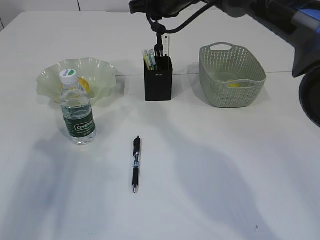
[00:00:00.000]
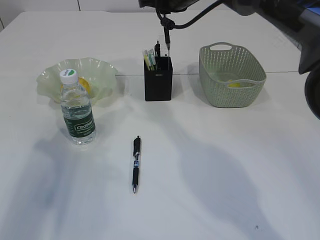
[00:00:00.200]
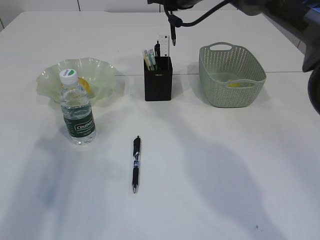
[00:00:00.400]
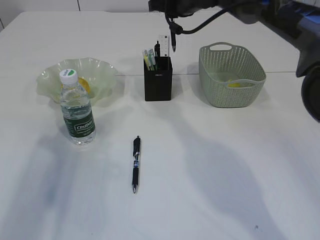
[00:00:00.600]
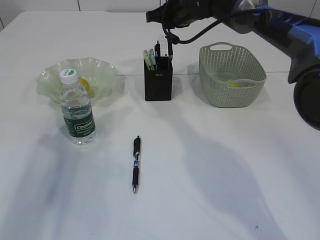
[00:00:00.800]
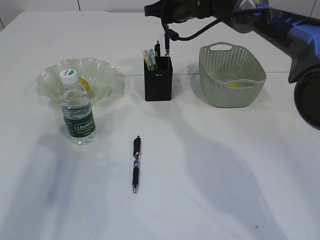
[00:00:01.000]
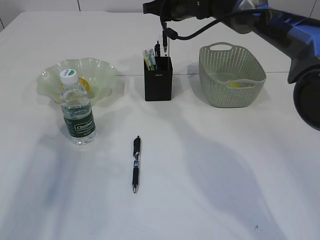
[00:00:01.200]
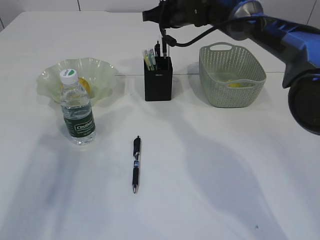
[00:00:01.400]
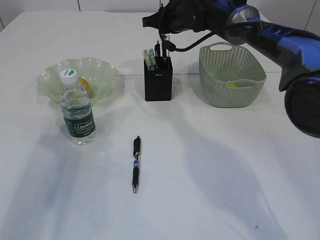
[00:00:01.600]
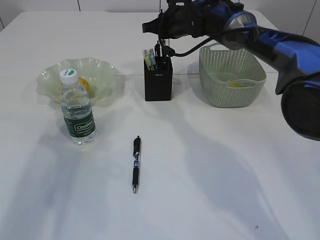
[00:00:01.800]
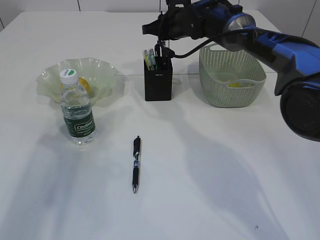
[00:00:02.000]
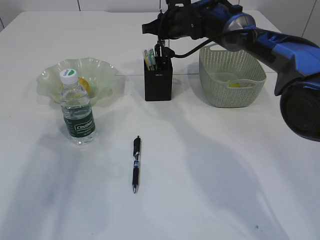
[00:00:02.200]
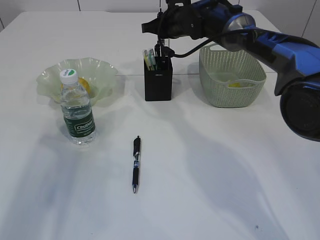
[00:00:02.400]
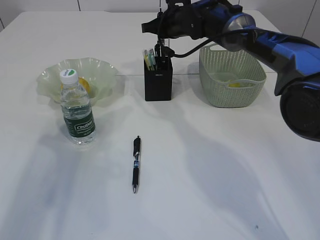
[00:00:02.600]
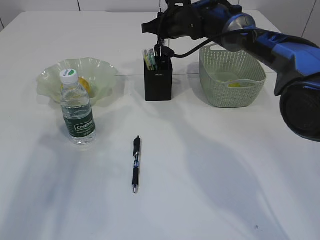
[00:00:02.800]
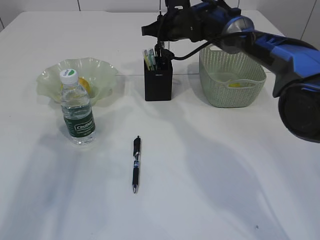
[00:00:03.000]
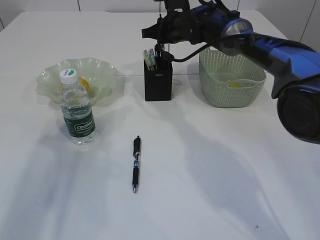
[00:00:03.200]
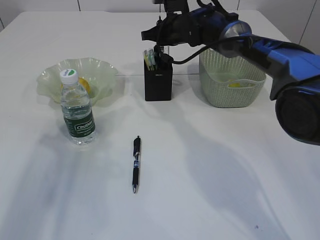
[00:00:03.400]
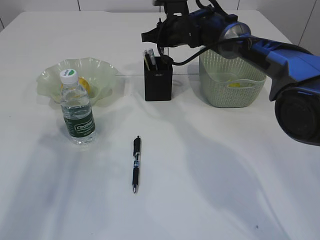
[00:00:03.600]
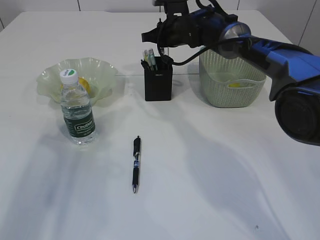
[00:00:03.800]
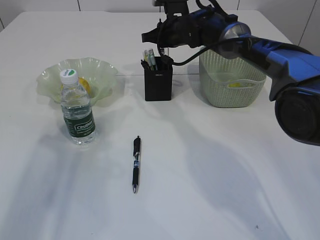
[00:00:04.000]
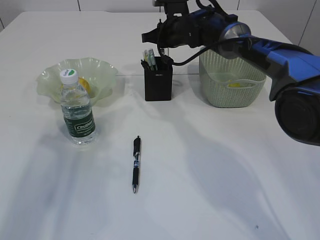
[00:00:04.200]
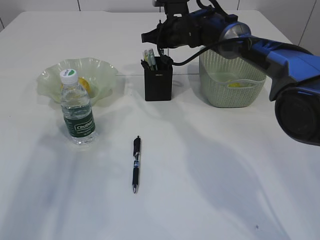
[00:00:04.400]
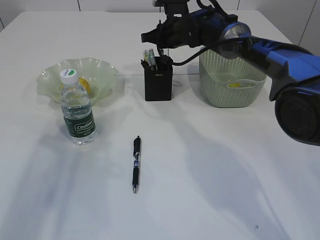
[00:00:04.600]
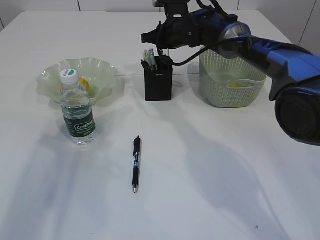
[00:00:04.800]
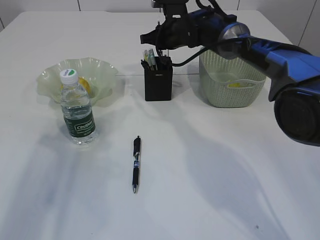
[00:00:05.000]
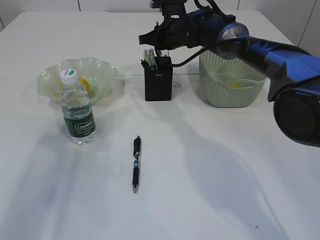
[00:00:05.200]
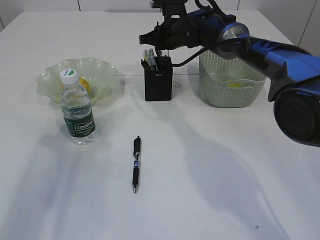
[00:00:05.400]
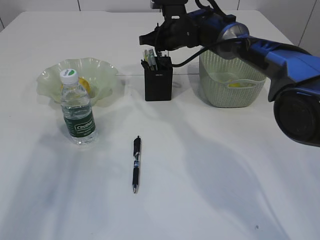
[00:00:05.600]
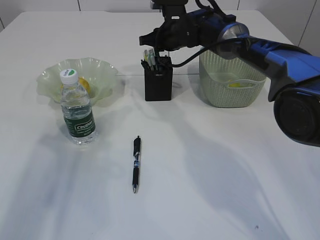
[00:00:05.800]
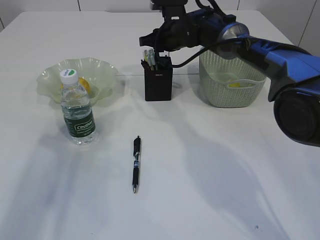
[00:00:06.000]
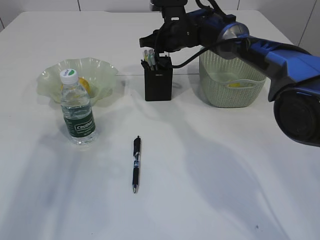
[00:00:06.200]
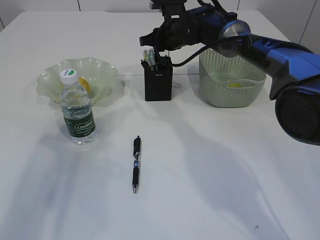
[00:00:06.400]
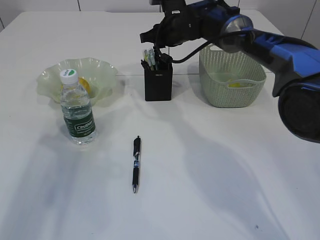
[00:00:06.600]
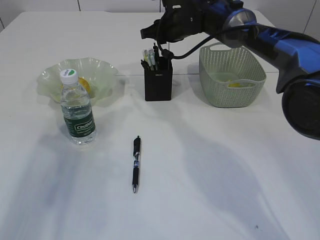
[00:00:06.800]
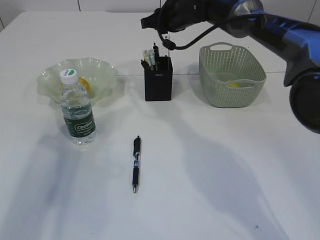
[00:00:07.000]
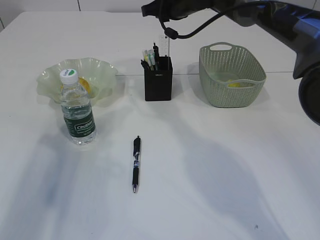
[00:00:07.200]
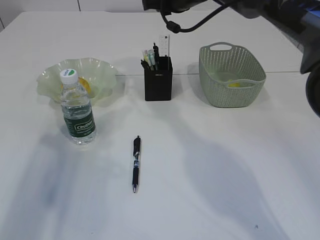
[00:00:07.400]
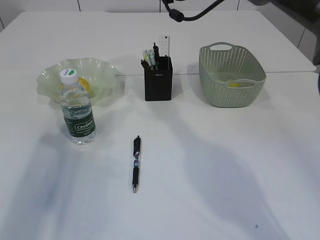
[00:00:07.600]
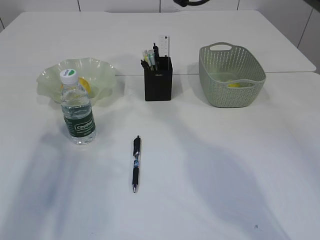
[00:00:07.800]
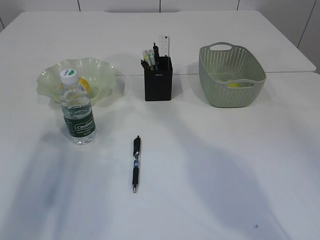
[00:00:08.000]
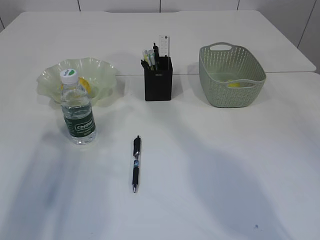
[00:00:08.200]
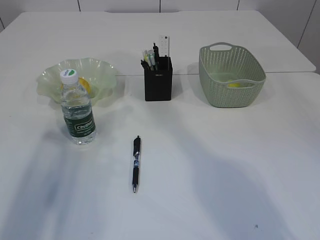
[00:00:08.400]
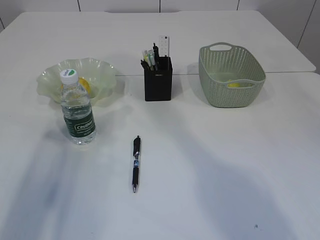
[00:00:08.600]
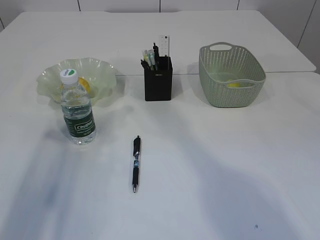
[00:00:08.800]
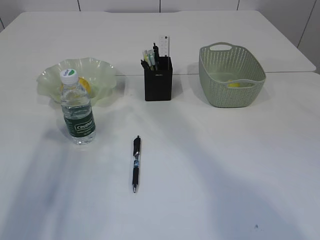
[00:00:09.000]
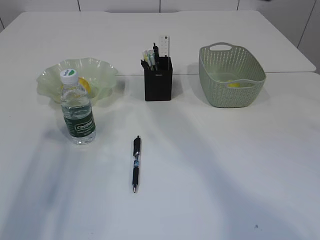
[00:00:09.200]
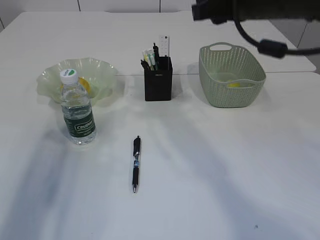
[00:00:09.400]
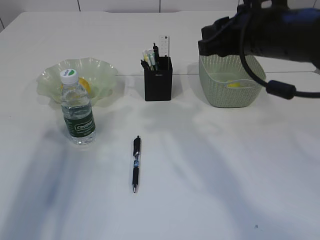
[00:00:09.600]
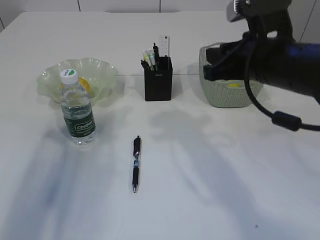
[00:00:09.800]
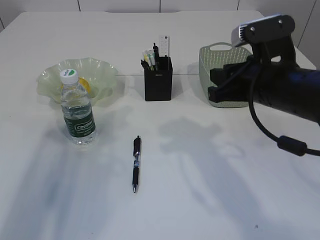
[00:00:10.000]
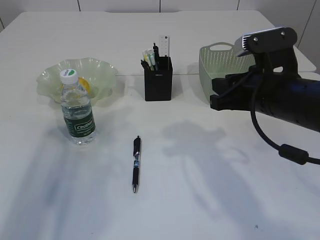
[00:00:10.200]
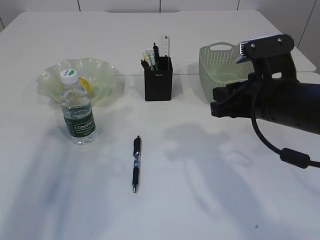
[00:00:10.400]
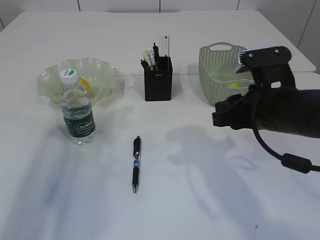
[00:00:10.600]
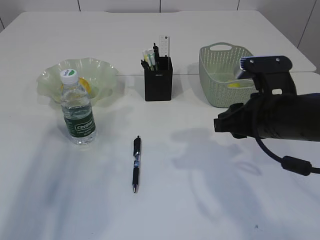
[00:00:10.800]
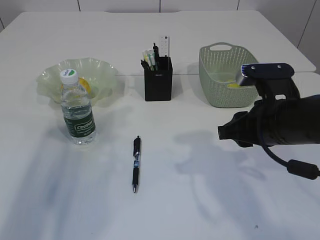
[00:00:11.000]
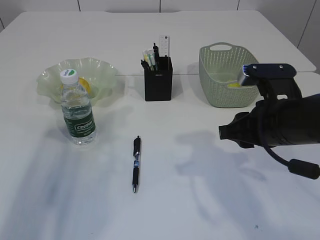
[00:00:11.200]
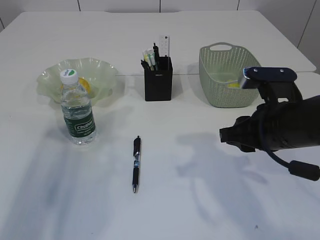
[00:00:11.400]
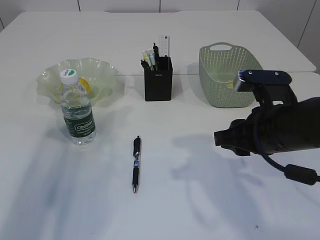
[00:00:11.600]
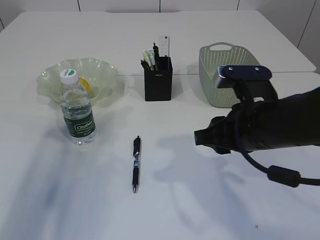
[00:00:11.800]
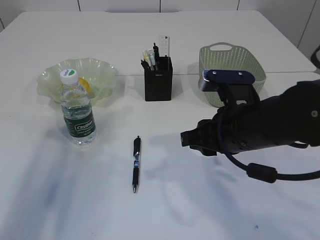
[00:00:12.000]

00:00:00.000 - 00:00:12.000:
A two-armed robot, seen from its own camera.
Step, 00:00:00.000 - 00:00:07.400: Place the pen into the pen holder.
00:00:00.000 - 00:00:01.600: The right gripper is displaced downward by some 5 cm.
00:00:01.600 - 00:00:04.400: The grippers make only small movements.
00:00:04.400 - 00:00:06.000: Neither gripper changes place.
00:00:06.000 - 00:00:07.600: The right gripper moves upward, approximately 10 cm.
00:00:07.600 - 00:00:09.000: The right gripper goes roughly 15 cm backward and upward.
00:00:09.000 - 00:00:10.400: The right gripper is displaced downward and backward by some 25 cm.
00:00:10.400 - 00:00:12.000: The right gripper changes place by some 5 cm.

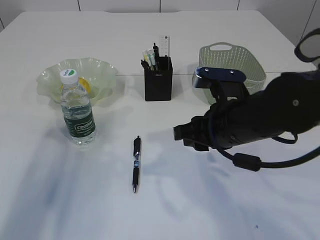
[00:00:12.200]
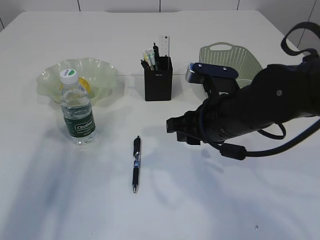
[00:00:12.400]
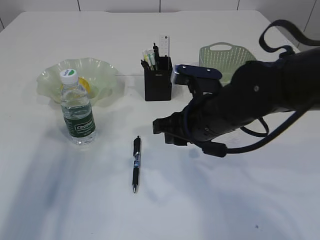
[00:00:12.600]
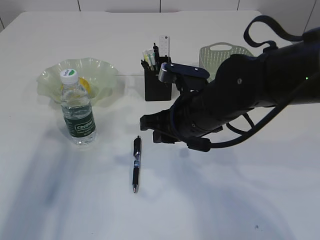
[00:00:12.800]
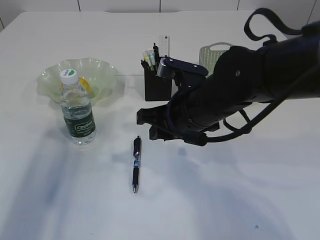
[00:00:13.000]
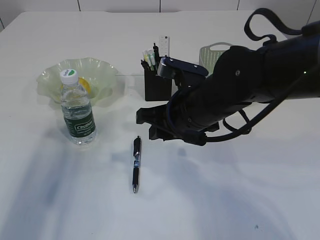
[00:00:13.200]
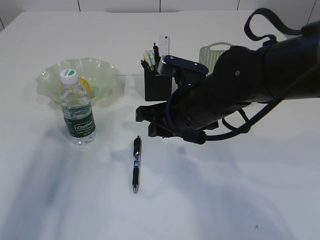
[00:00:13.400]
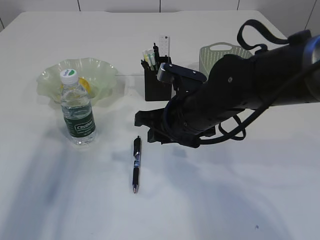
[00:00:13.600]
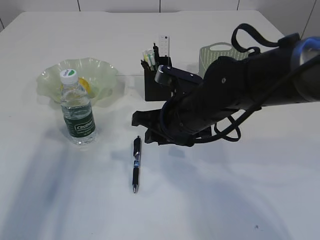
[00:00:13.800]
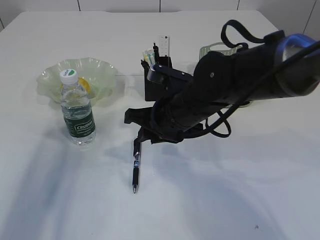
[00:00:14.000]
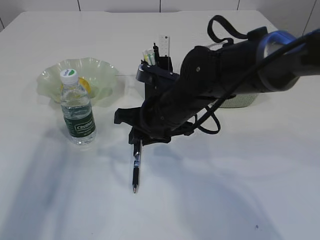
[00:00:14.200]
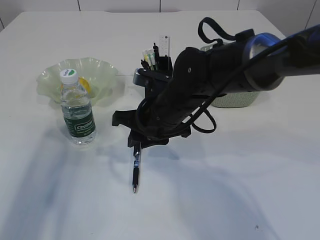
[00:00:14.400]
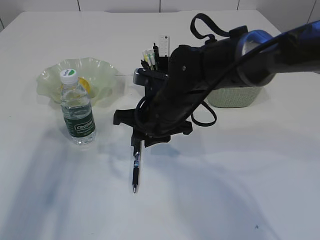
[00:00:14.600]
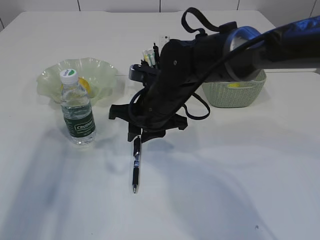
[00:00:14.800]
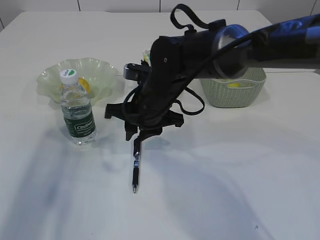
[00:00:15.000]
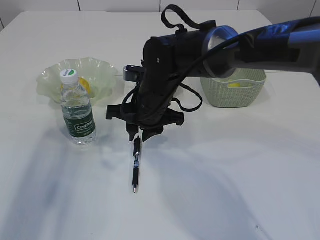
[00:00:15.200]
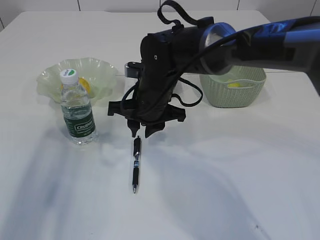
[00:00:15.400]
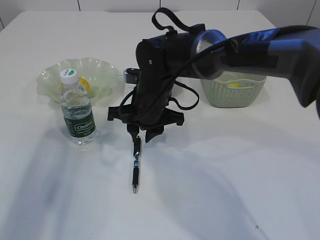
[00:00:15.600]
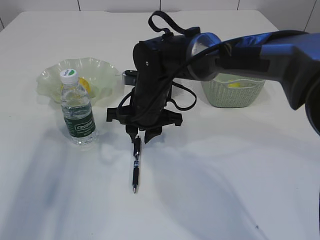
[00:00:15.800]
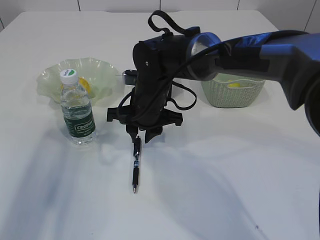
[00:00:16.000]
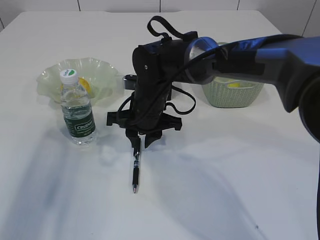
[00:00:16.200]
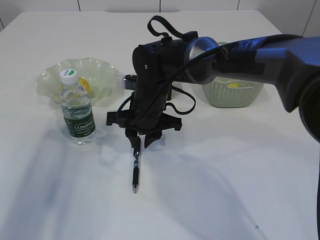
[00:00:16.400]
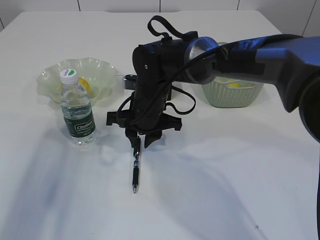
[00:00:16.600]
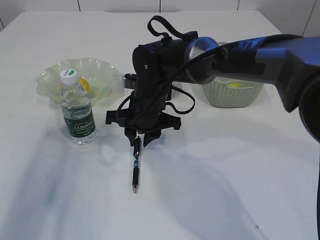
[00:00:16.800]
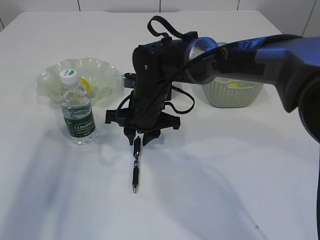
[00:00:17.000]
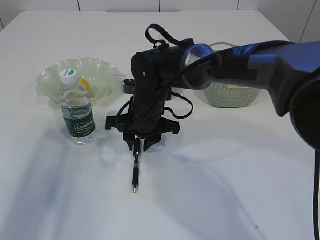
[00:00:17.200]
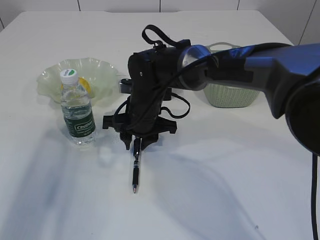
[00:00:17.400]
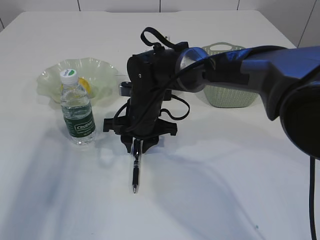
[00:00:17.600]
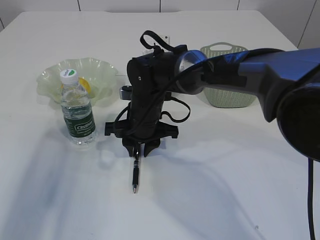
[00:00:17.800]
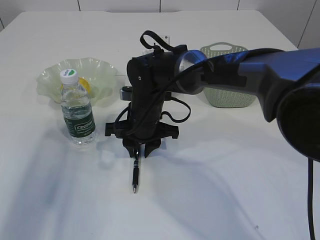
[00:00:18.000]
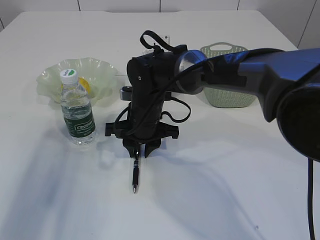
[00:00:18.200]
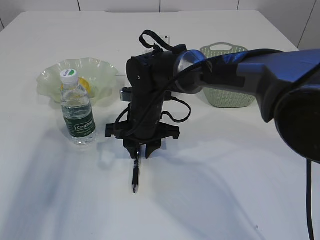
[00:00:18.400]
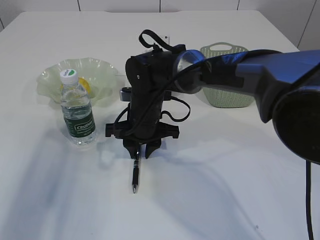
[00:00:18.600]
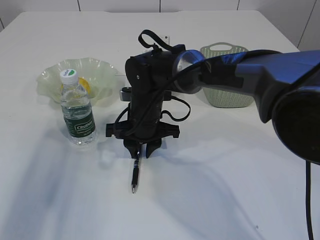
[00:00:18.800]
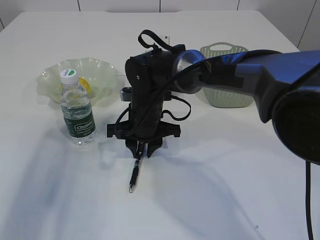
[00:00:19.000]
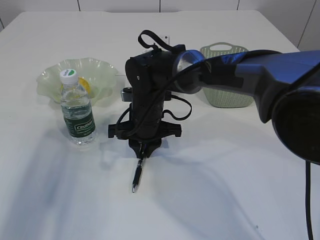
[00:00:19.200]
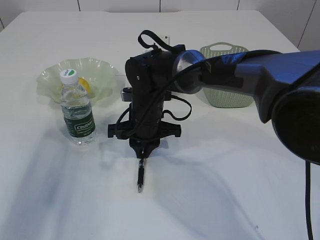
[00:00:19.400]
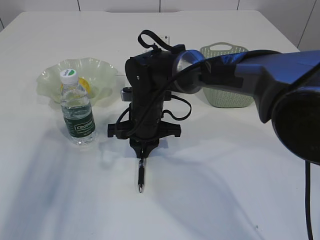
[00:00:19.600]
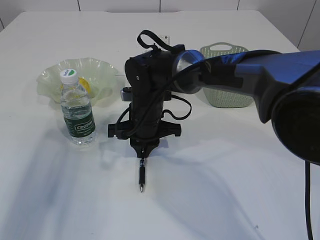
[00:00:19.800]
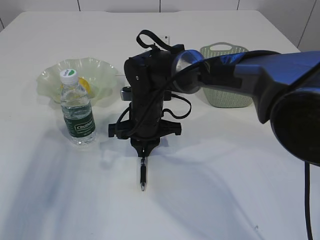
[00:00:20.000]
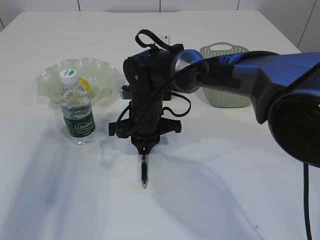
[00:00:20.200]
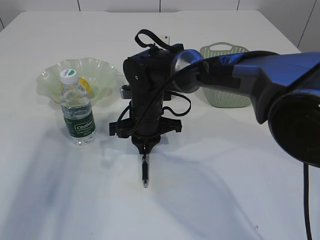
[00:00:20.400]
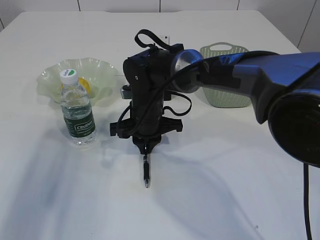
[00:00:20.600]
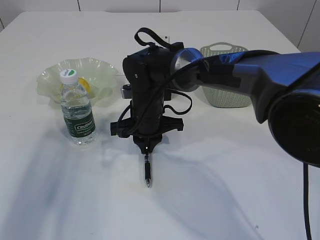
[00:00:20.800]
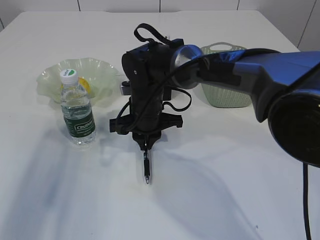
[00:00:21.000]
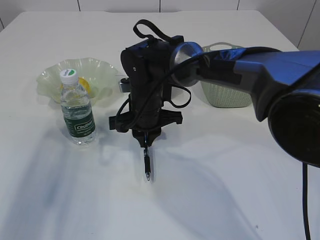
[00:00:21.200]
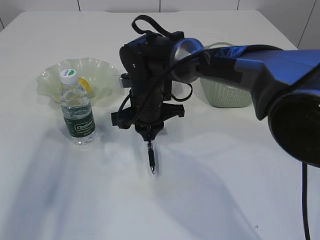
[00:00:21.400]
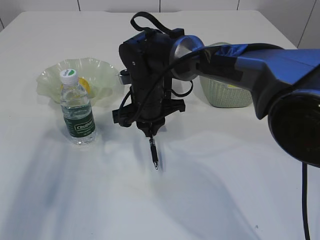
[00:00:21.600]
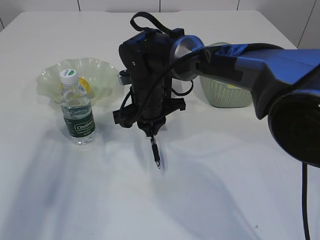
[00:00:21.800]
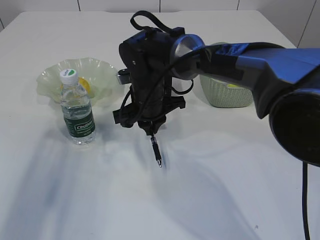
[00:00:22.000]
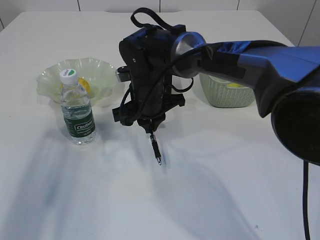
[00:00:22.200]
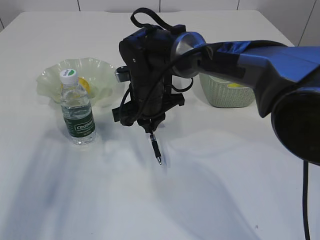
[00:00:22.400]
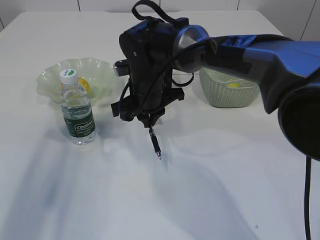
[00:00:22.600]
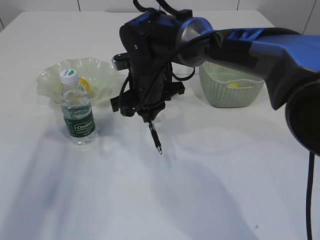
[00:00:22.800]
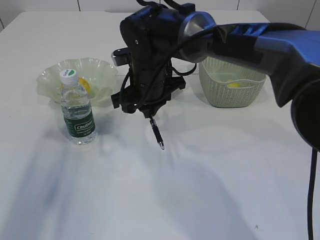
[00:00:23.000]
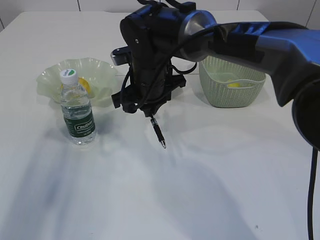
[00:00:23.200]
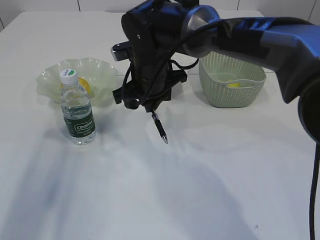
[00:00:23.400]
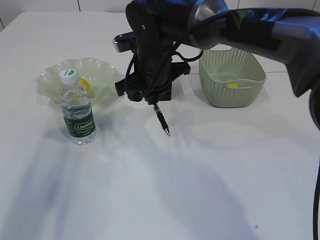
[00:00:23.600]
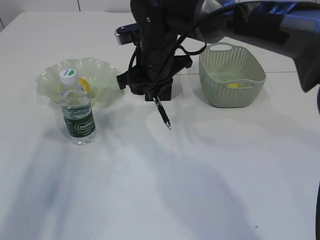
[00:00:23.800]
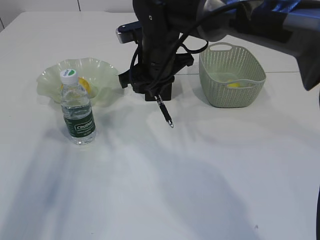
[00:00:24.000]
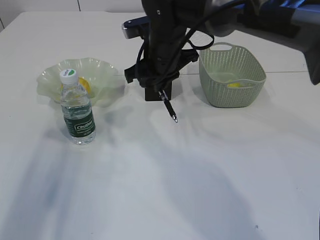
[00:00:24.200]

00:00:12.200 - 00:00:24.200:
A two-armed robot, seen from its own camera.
Step, 00:00:12.200 - 00:00:22.200: Pick up the pen with right arm.
00:00:12.200 - 00:00:13.800: The right gripper is displaced to the left by some 5 cm.
00:00:13.800 - 00:00:15.200: The right gripper is displaced forward and to the left by approximately 10 cm.
00:00:15.200 - 00:00:18.200: The grippers make only small movements.
00:00:18.200 - 00:00:19.800: Both grippers stay put.
00:00:19.800 - 00:00:22.600: The grippers move only a little.
00:00:22.600 - 00:00:24.200: The right gripper moves upward, some 5 cm.
